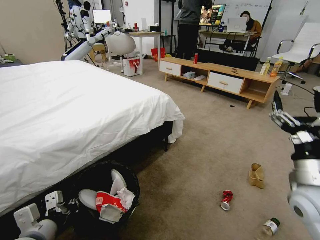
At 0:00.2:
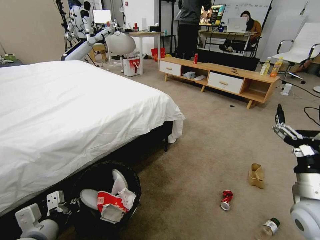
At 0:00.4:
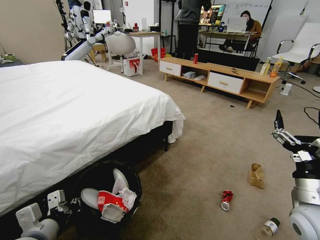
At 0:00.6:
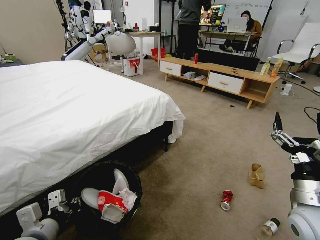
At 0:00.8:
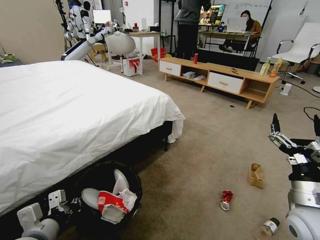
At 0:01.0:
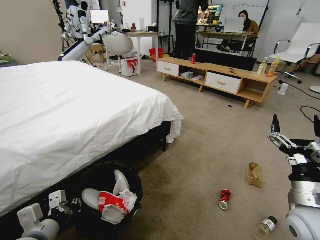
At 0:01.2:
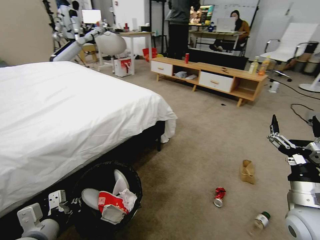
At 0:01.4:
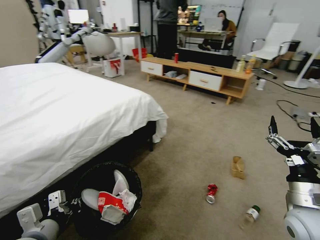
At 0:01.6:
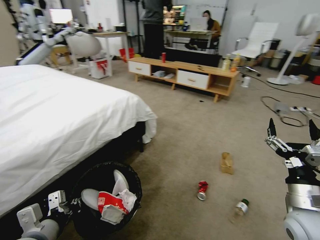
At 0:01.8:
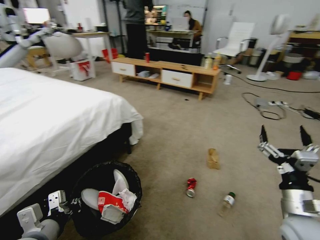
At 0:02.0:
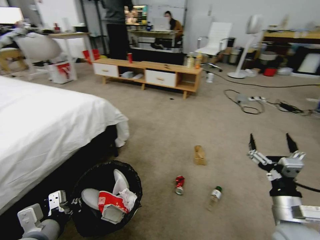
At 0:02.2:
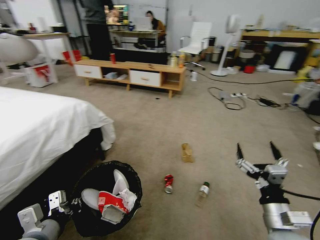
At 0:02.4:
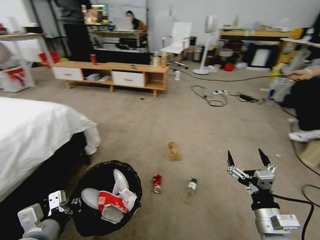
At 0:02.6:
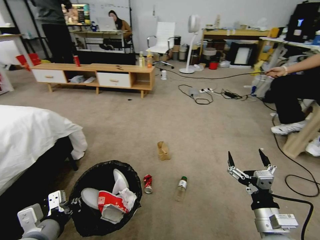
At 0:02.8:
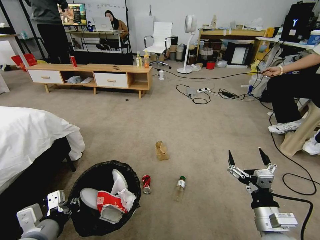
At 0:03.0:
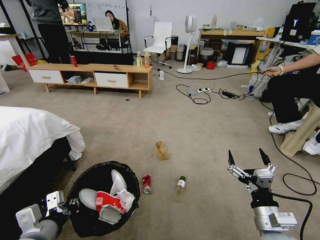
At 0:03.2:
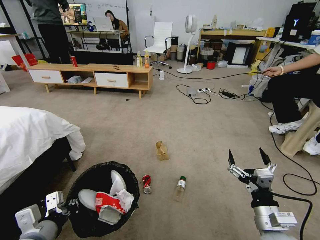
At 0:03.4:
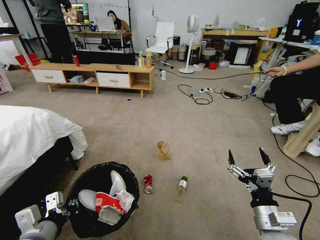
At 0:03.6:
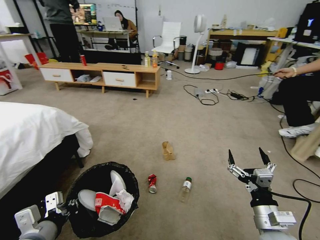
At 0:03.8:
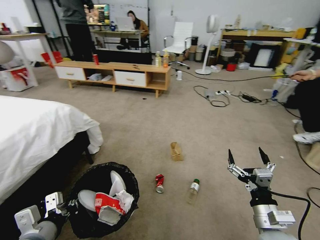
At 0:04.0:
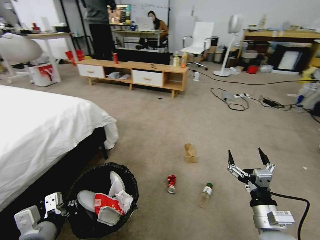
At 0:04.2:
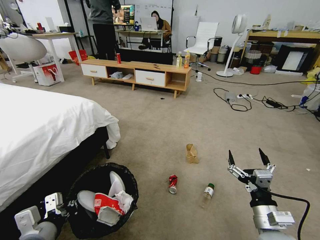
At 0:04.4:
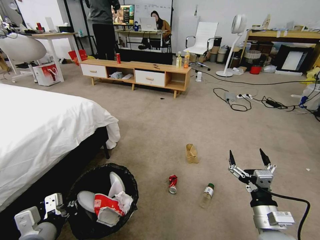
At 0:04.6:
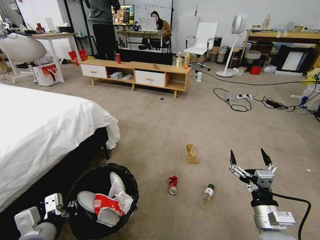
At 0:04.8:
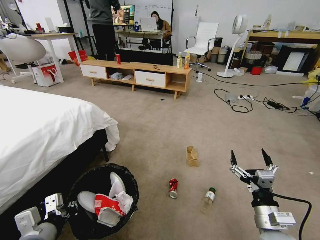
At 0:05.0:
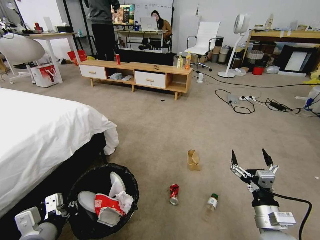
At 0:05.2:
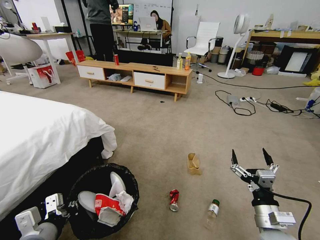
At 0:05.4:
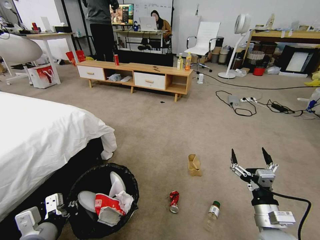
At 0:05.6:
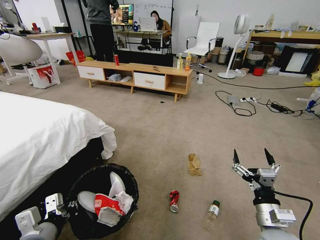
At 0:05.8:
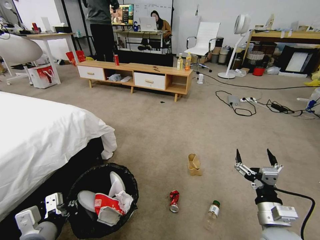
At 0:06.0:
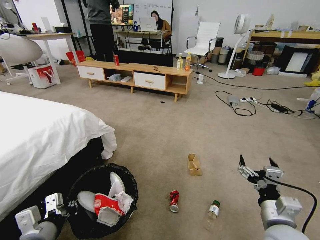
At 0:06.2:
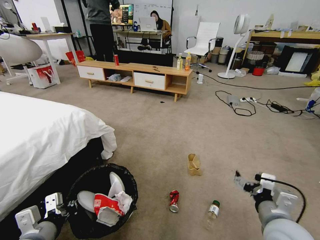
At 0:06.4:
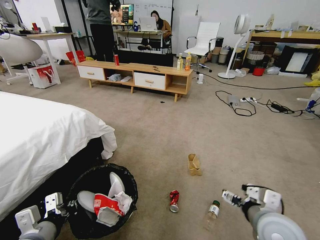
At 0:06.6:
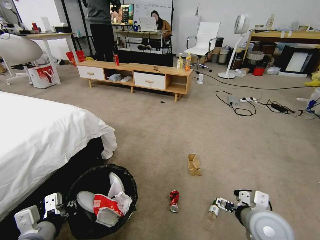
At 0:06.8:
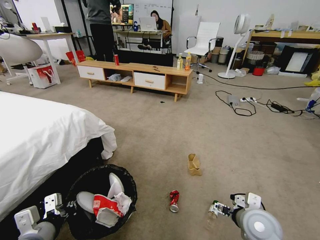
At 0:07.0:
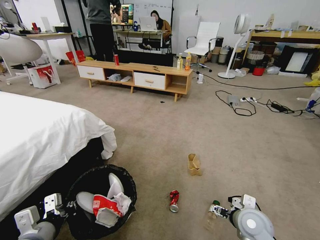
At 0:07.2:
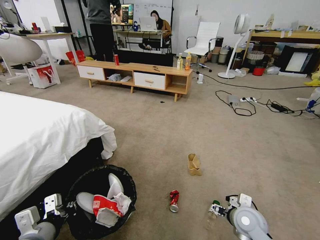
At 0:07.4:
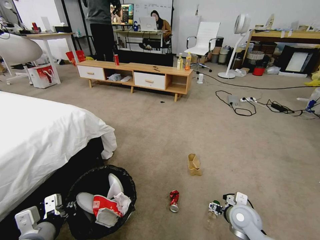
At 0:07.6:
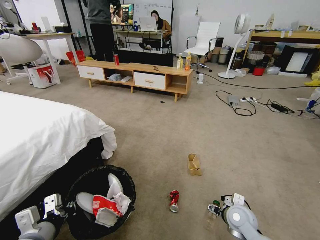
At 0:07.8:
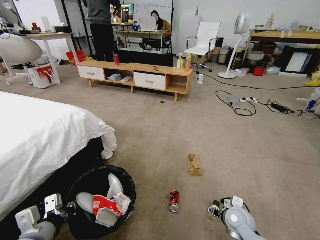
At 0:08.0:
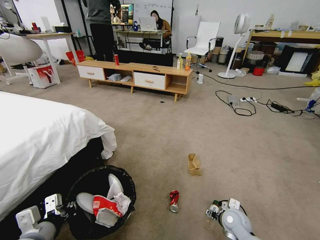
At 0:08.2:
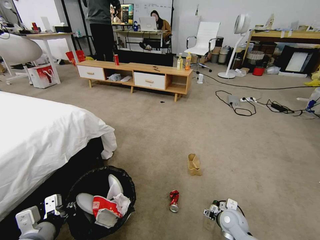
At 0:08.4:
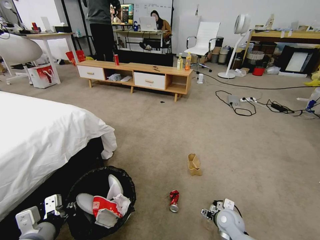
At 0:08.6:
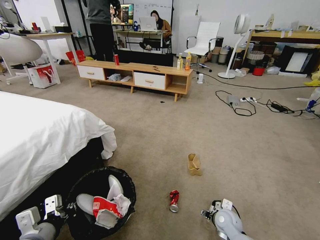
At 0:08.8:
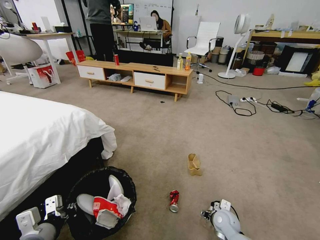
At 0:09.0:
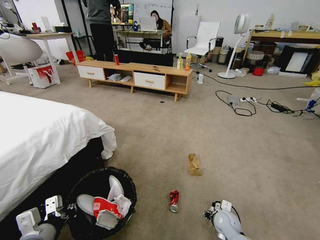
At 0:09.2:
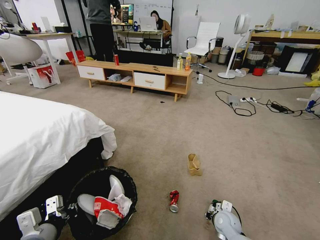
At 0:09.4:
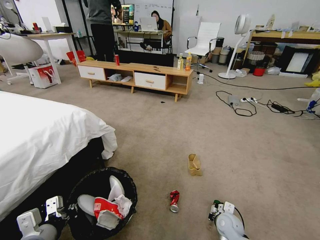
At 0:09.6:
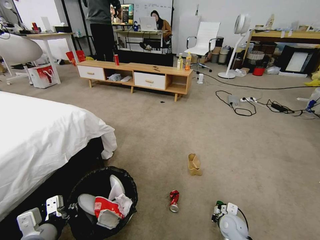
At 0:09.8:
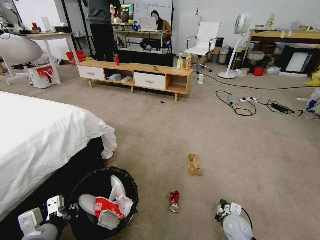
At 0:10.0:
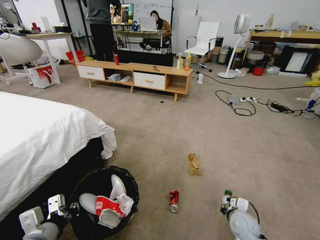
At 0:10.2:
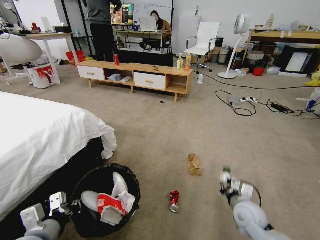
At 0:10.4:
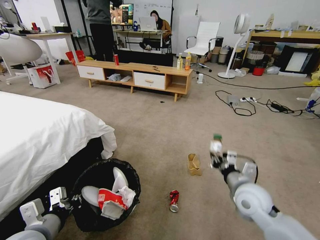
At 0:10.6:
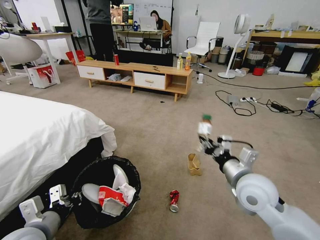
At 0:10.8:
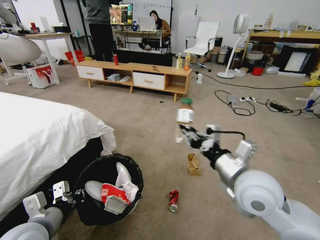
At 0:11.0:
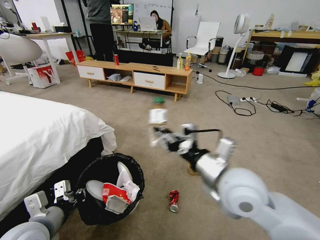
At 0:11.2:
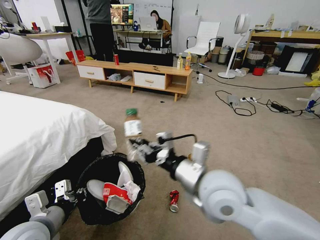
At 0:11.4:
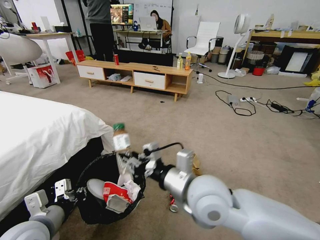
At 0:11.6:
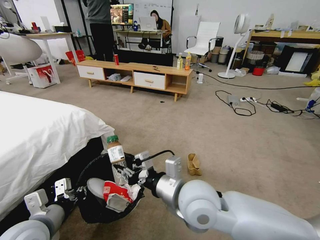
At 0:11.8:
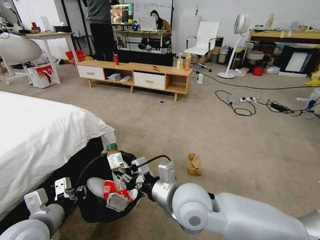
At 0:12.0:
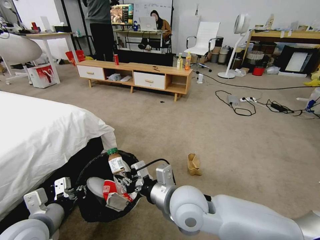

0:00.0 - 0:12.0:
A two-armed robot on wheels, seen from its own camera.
Task of the whole recording: Pick up the trash bin and place the garbage on the floor into it.
0:00.0 - 0:01.6: The right gripper shifts approximately 5 cm downward.
0:01.6 - 0:03.0: The right gripper is displaced downward and to the left by about 10 cm.
0:06.0 - 0:07.6: The right gripper is displaced downward and forward by approximately 15 cm.
0:07.6 - 0:09.0: The right gripper moves downward, roughly 10 cm.
0:09.0 - 0:10.4: The right gripper is displaced upward by approximately 20 cm, and closes.
0:10.4 - 0:12.0: The right gripper goes approximately 20 cm to the left.

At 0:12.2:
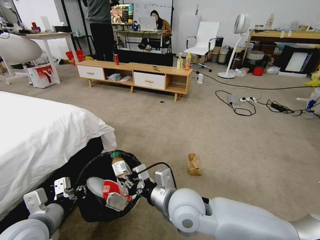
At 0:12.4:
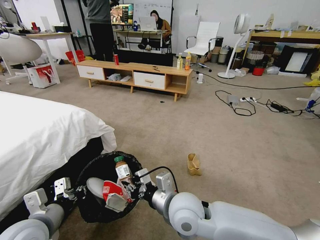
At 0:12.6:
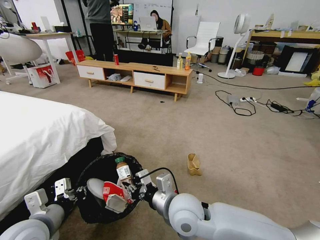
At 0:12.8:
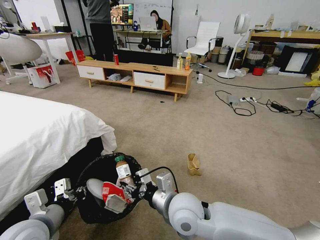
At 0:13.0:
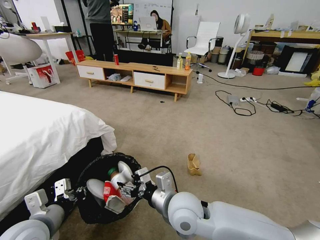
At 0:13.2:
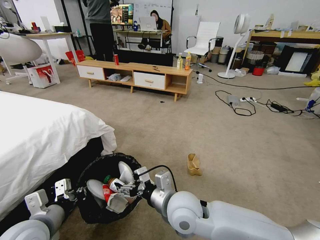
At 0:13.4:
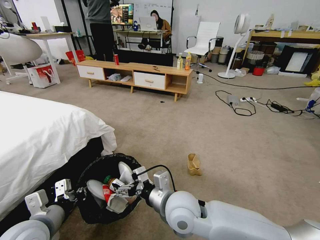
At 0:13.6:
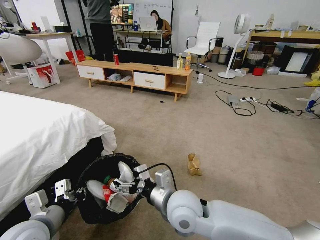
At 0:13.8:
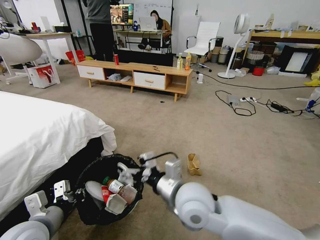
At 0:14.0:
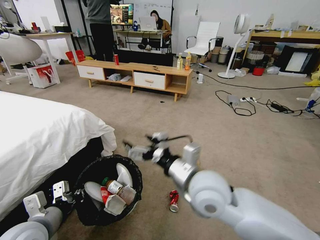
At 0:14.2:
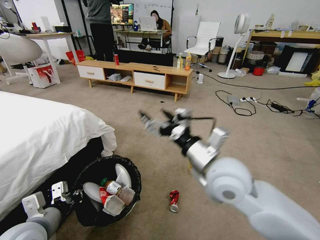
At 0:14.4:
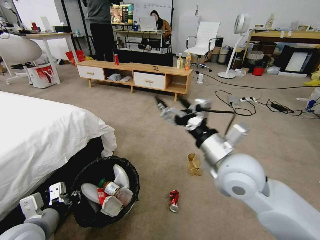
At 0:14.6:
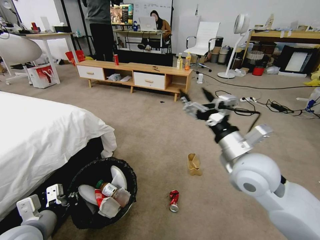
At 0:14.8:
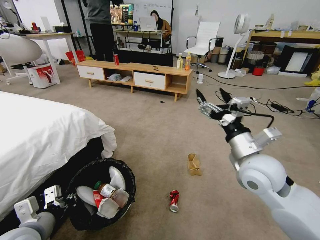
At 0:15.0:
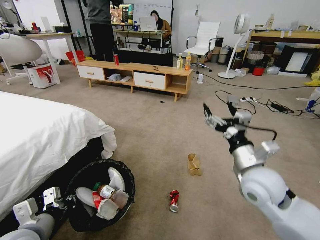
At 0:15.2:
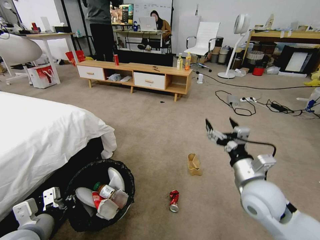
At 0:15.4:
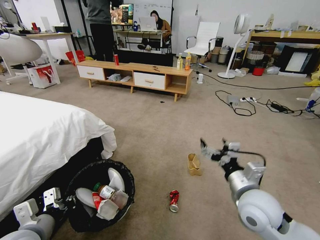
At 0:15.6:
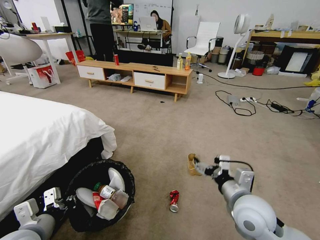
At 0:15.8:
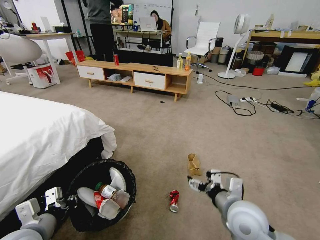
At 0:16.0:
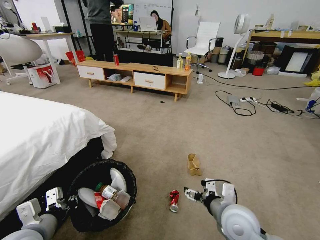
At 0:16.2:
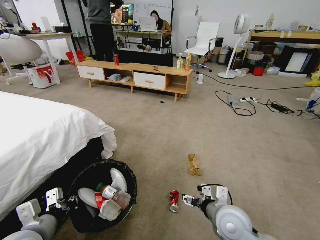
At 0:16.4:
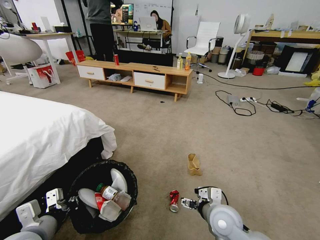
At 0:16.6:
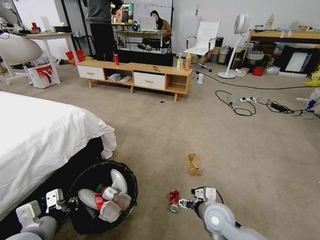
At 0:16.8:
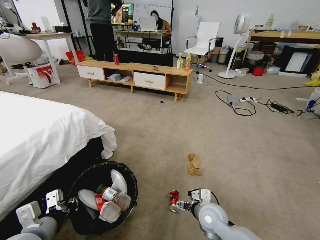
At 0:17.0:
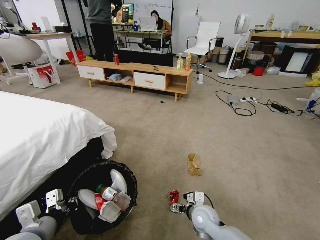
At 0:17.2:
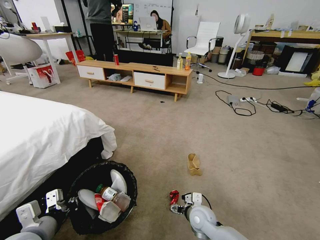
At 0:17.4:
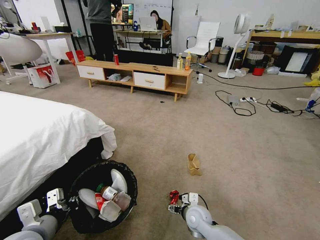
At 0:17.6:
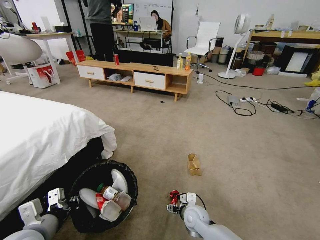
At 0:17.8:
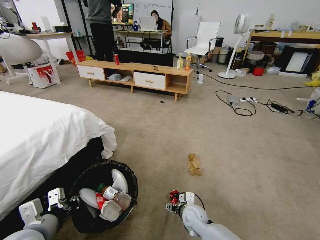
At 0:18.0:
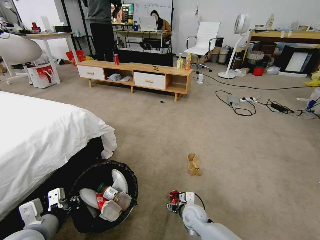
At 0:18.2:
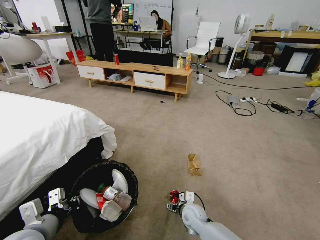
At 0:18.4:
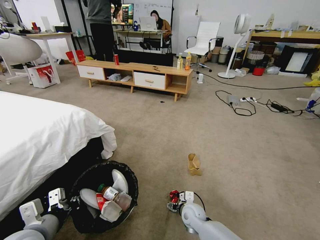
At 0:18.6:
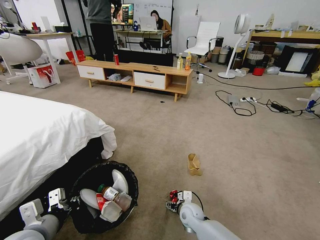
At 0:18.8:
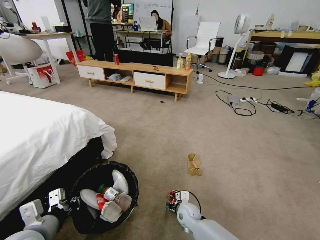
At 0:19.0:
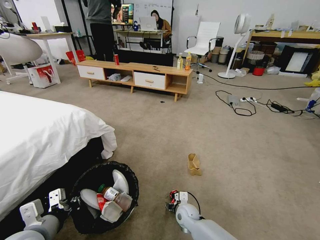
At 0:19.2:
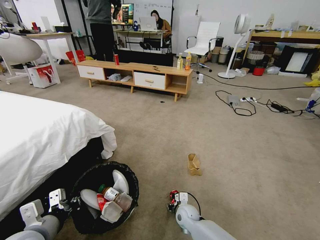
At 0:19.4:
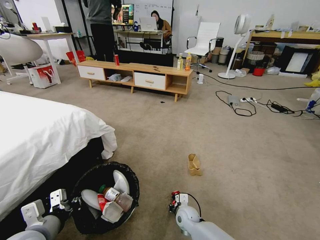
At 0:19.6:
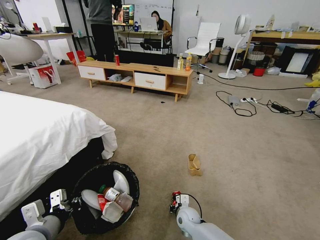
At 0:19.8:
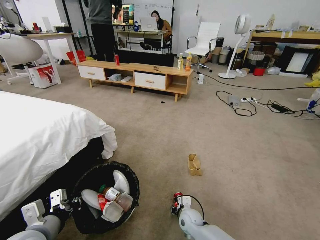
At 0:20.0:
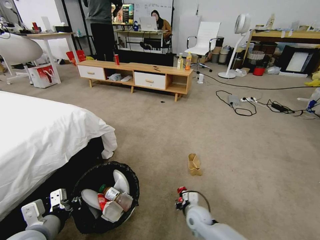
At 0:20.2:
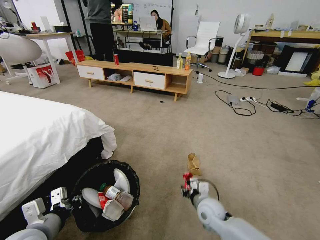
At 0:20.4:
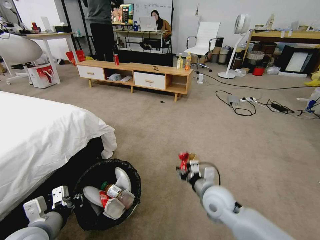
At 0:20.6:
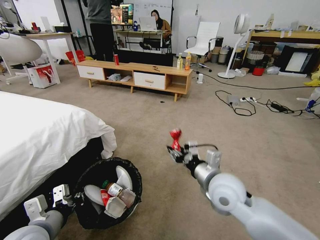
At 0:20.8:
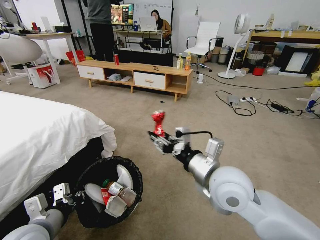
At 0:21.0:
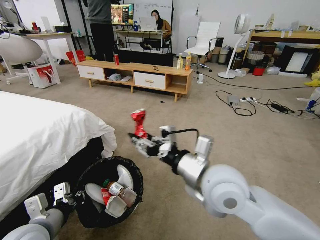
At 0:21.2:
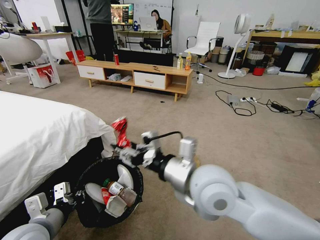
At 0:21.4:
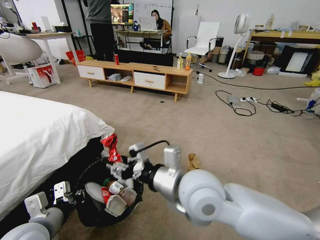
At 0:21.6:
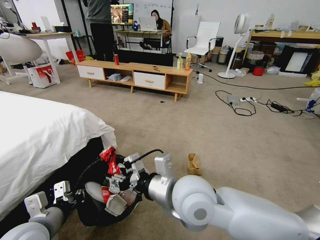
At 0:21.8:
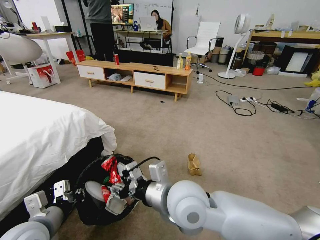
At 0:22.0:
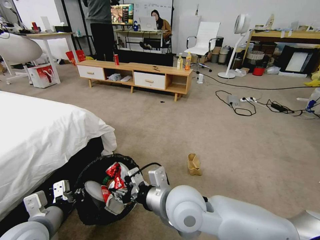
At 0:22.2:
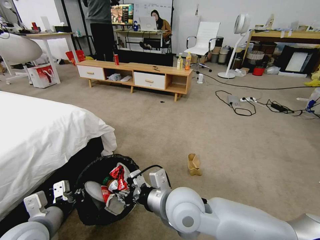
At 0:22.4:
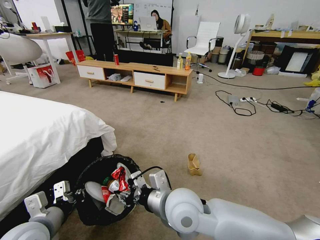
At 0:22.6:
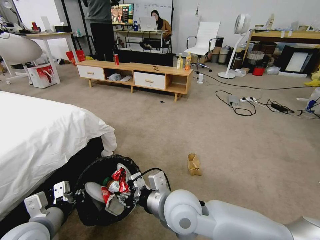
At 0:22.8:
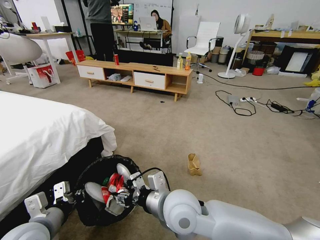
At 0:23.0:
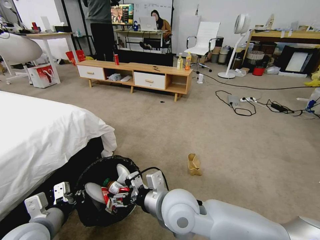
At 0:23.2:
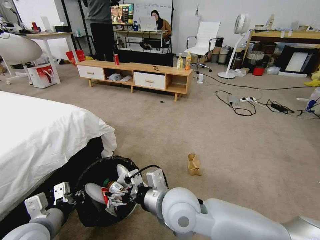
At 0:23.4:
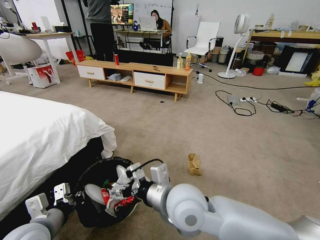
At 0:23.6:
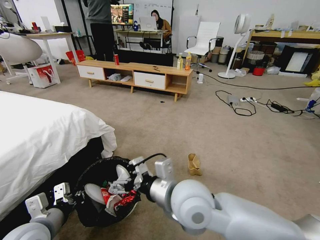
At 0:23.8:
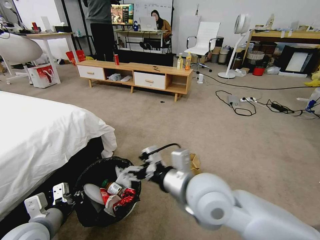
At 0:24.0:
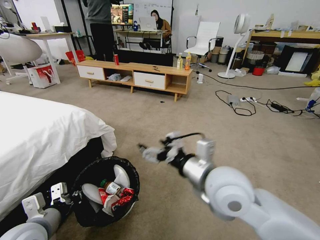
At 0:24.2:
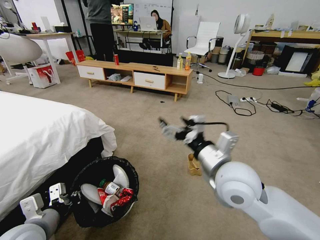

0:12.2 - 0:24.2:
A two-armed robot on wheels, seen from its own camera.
Task of the whole recording: Pick up the trash bin and place the garbage on the floor into it.
0:12.2 - 0:13.8: The right gripper opens its fingers.
0:13.8 - 0:15.2: The right gripper travels to the right by approximately 20 cm.
0:15.2 - 0:16.6: The right gripper goes roughly 15 cm downward and to the left.
0:16.6 - 0:18.2: The right gripper moves downward, to the left and forward, approximately 15 cm.
0:18.2 - 0:19.8: The right gripper closes up.
0:19.8 - 0:21.2: The right gripper is displaced upward by about 40 cm.
0:21.2 - 0:22.6: The right gripper is displaced downward and to the left by roughly 10 cm.
0:22.6 - 0:24.2: The right gripper moves to the right and upward, about 15 cm, and opens its fingers.
